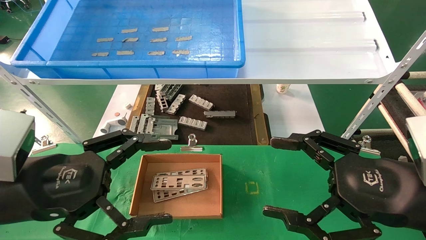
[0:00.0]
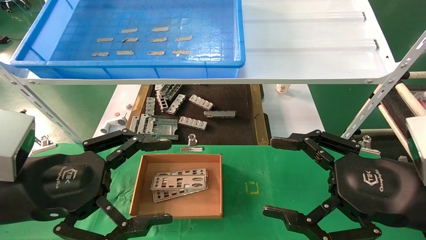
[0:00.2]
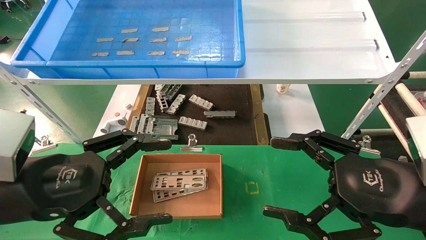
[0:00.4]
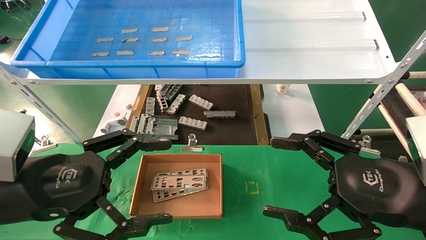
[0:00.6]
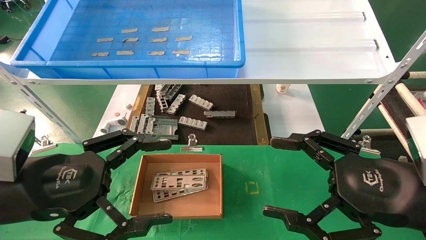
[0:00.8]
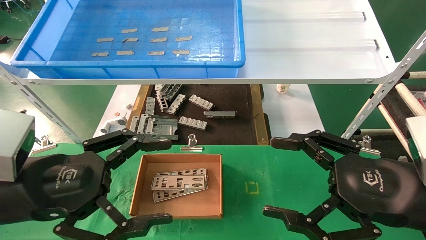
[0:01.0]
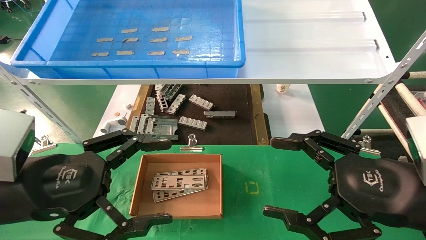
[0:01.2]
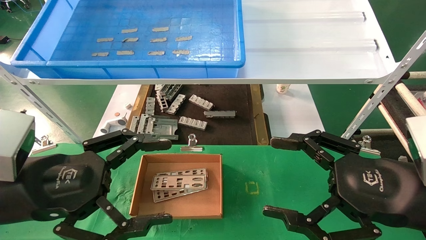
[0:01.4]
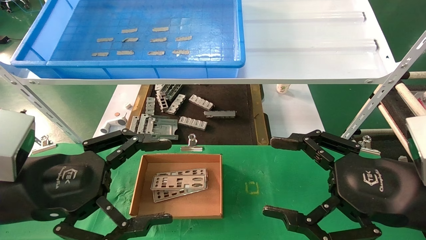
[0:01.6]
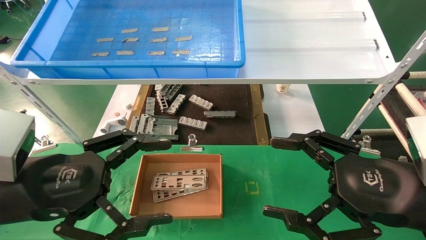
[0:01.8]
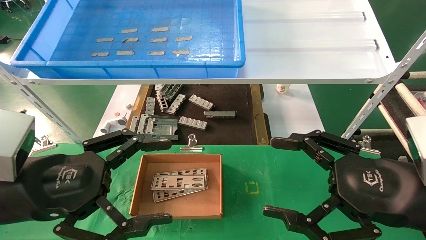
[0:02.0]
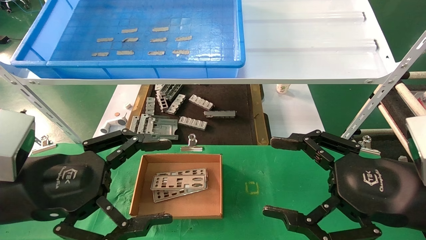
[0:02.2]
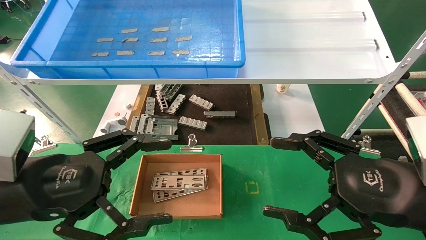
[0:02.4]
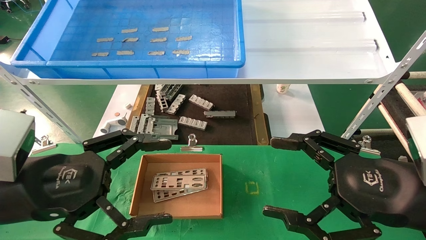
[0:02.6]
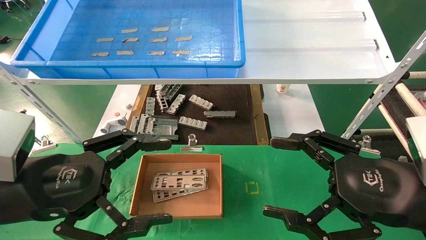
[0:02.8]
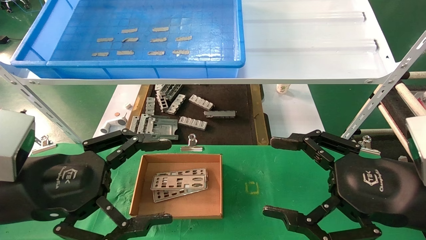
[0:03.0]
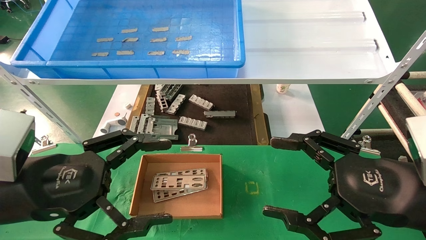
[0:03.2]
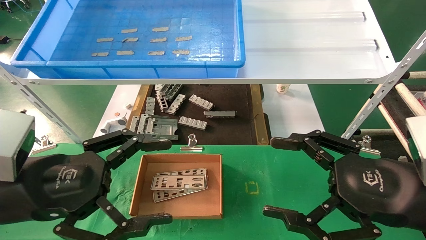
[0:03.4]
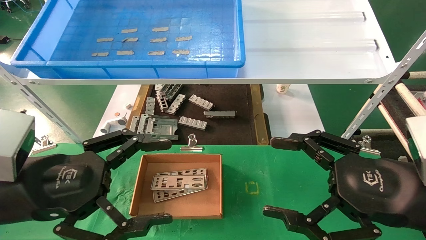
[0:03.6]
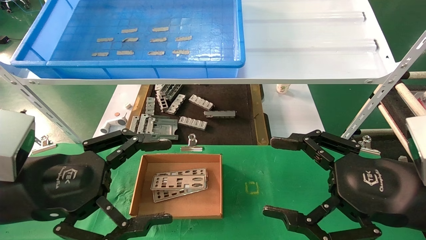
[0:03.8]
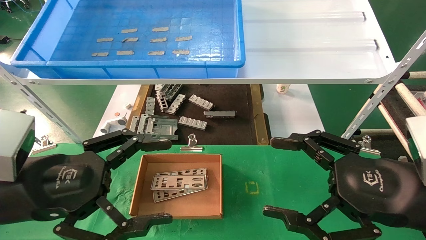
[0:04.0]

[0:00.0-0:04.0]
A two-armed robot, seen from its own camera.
Task of the whole recording: pick up the parts on the tray and put them in the cardboard box.
0:00.0 to 0:04.0: The two grippers keep their place.
